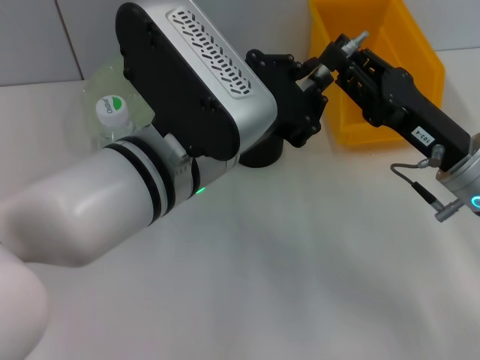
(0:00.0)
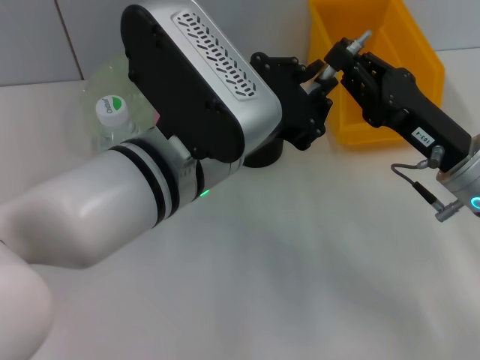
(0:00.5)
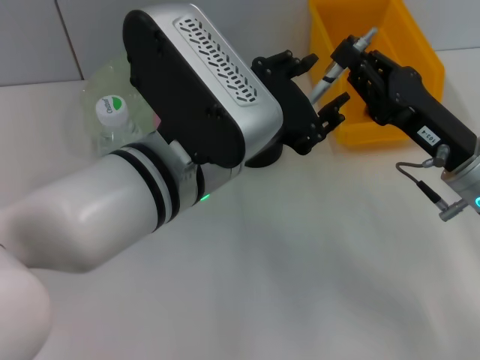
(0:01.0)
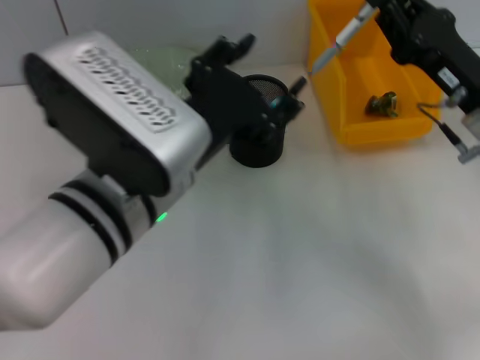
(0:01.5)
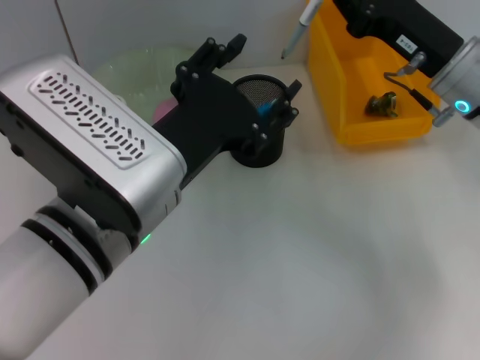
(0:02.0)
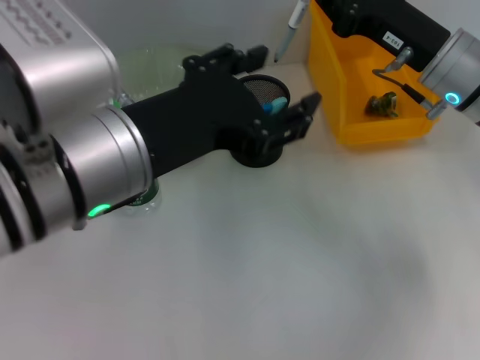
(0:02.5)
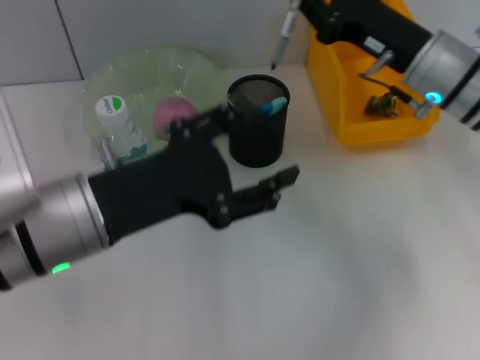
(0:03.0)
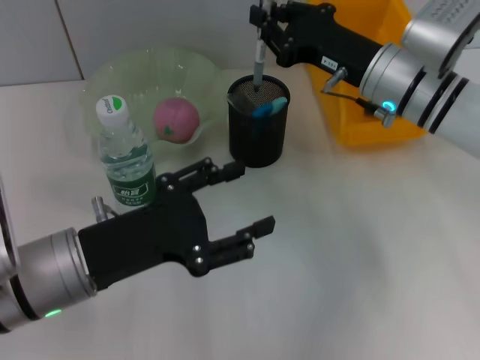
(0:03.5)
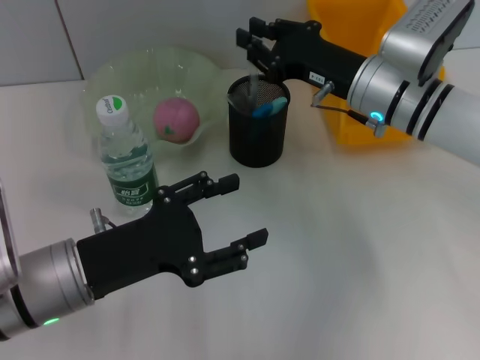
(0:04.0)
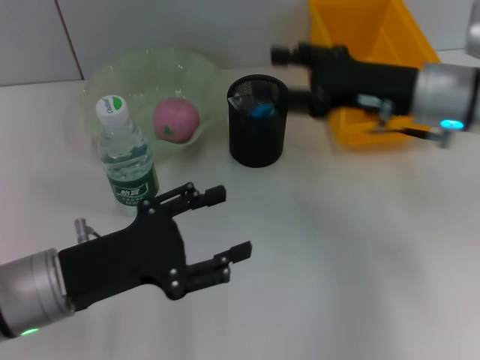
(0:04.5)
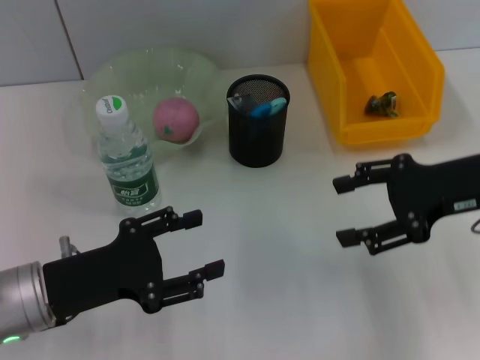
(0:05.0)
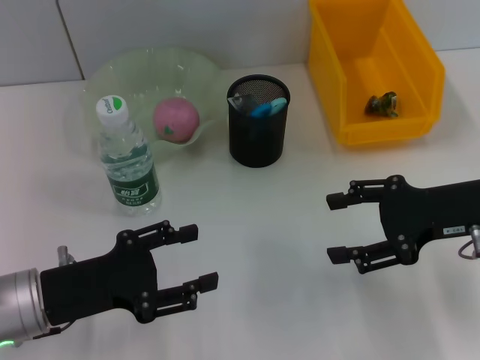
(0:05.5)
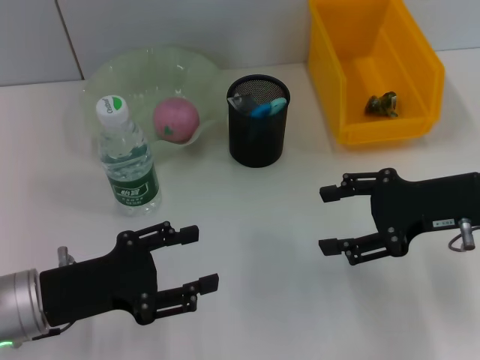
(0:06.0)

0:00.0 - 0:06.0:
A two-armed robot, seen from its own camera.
Step, 0:01.5 - 0:04.5: Place the gray spring-action pen into the pen holder with the right hand.
0:00.0 - 0:02.0: The left gripper ends up about 5 cm from where it was, and opens its fingers, while the right gripper shifts about 5 cm forward.
0:02.0 - 0:04.0: The right gripper shifts some 5 cm to the left. Meanwhile the left gripper is displaced downward and to the left by some 15 cm.
0:04.0 - 0:06.0: The left gripper shifts by some 5 cm, while the right gripper is displaced backward and to the right by some 15 cm, and opens.
